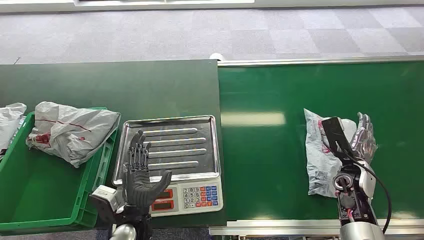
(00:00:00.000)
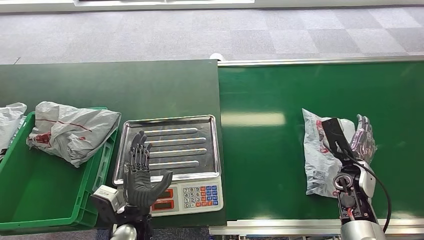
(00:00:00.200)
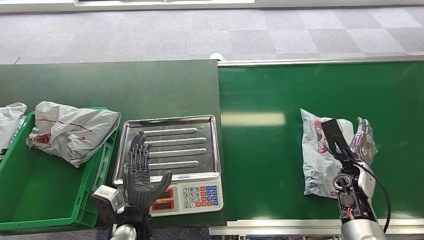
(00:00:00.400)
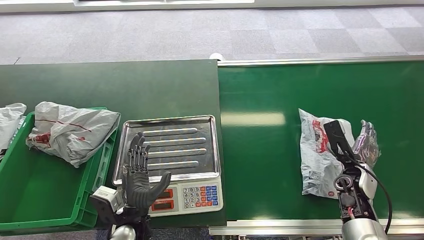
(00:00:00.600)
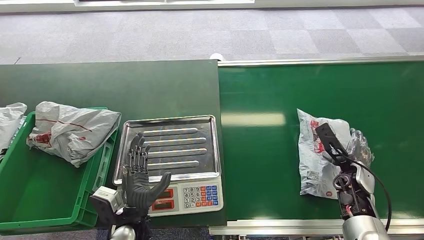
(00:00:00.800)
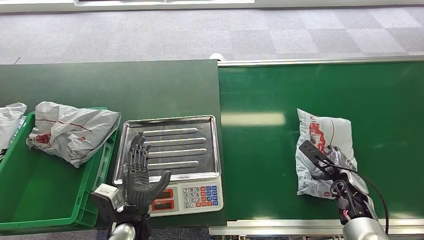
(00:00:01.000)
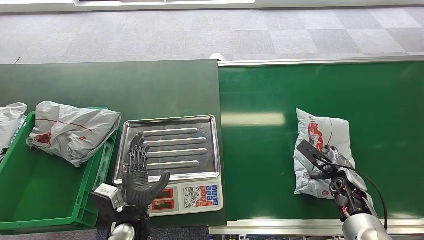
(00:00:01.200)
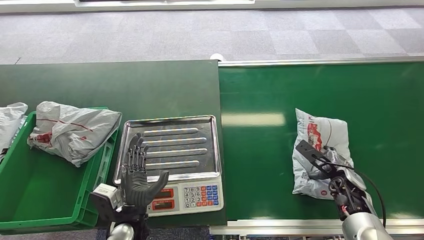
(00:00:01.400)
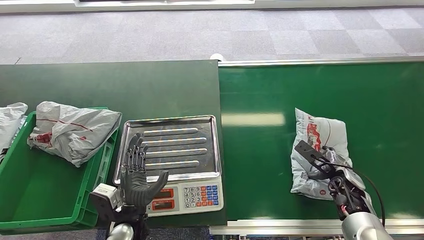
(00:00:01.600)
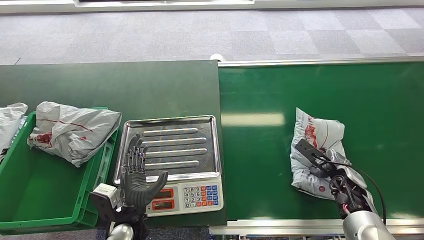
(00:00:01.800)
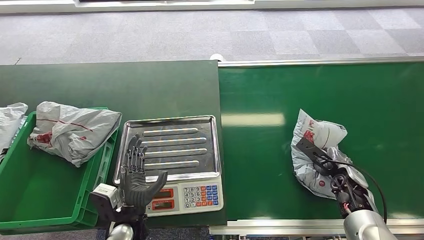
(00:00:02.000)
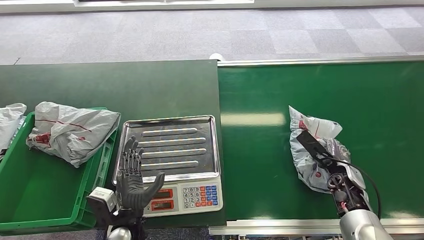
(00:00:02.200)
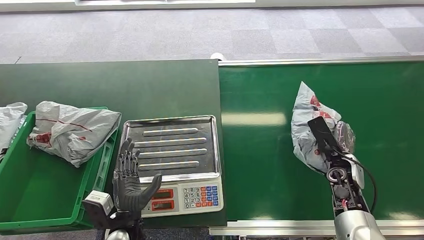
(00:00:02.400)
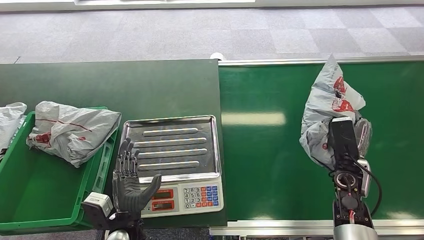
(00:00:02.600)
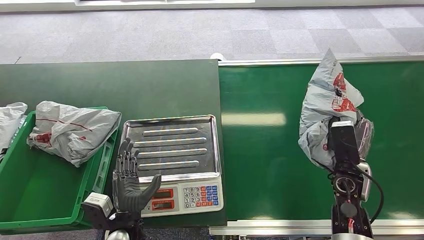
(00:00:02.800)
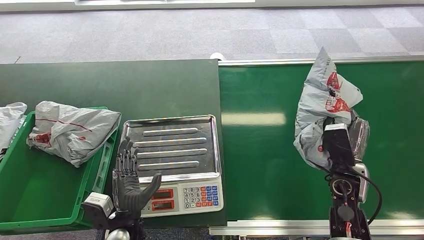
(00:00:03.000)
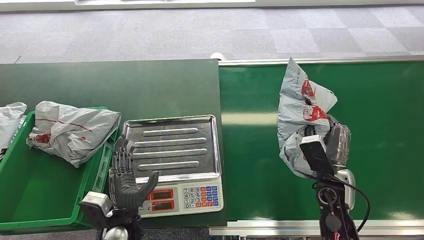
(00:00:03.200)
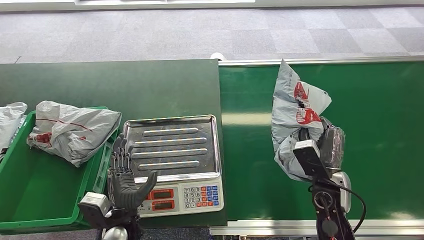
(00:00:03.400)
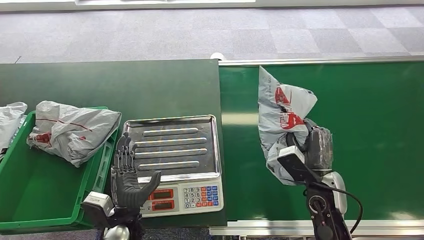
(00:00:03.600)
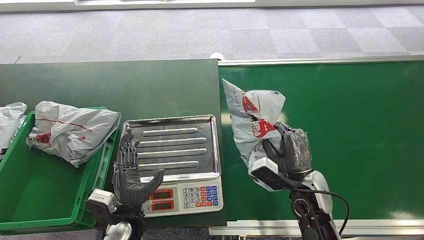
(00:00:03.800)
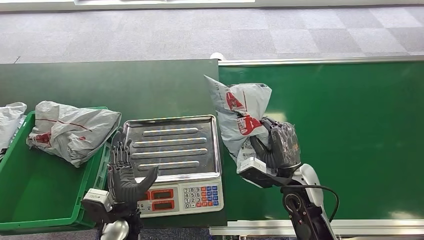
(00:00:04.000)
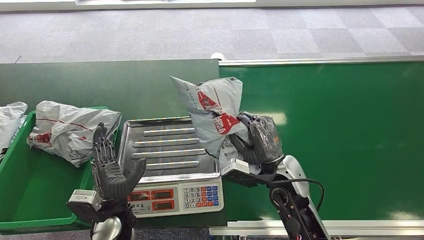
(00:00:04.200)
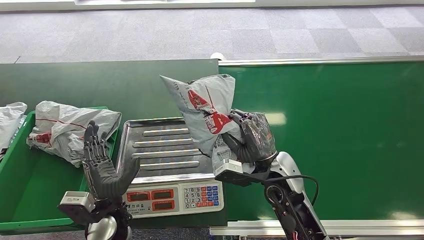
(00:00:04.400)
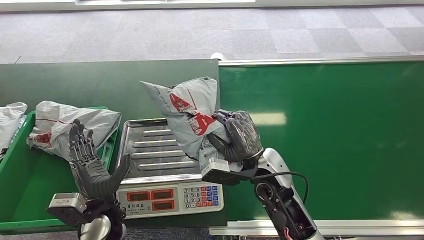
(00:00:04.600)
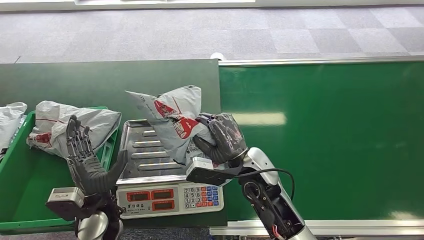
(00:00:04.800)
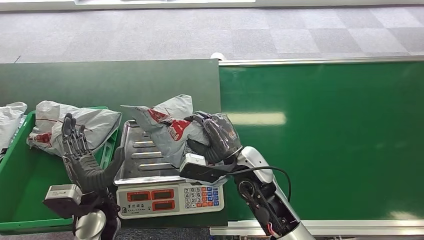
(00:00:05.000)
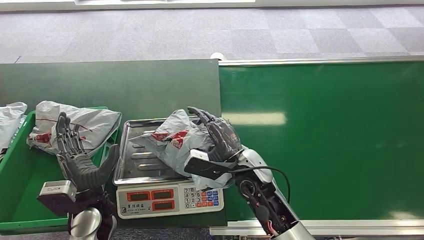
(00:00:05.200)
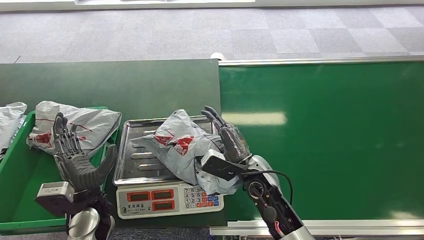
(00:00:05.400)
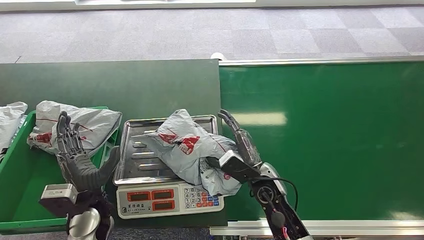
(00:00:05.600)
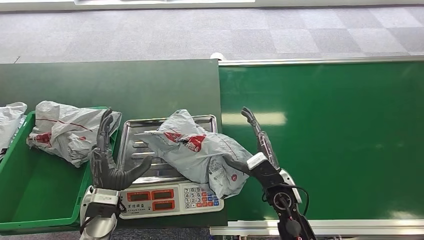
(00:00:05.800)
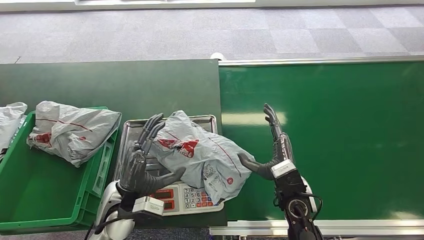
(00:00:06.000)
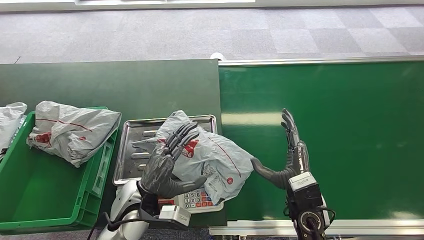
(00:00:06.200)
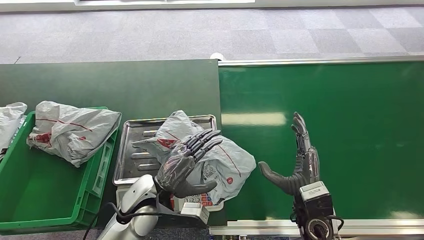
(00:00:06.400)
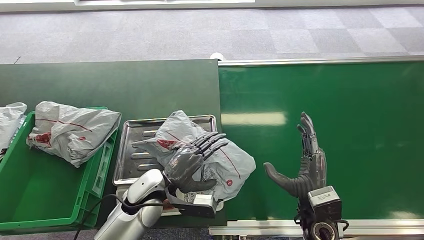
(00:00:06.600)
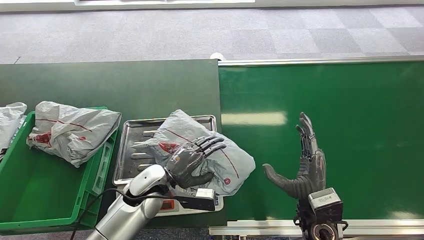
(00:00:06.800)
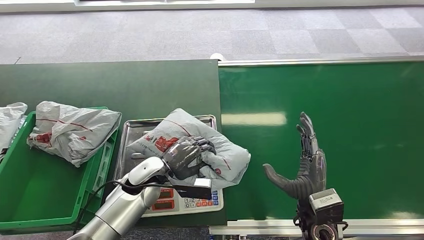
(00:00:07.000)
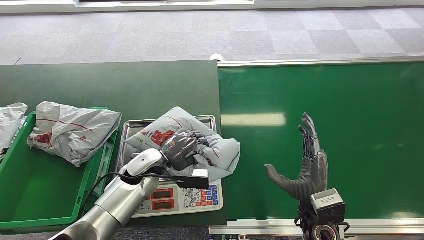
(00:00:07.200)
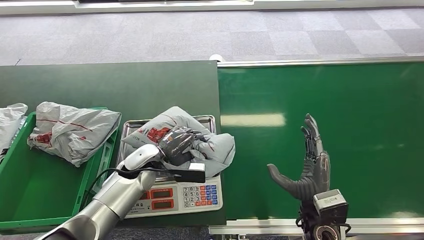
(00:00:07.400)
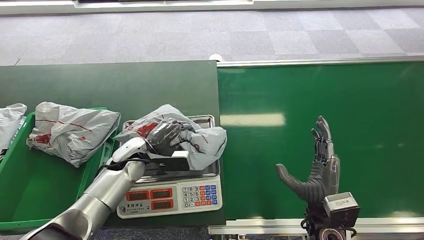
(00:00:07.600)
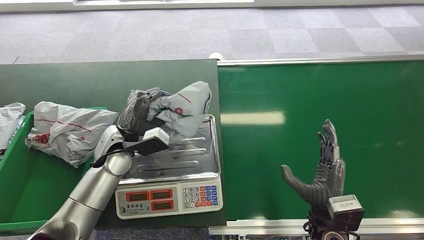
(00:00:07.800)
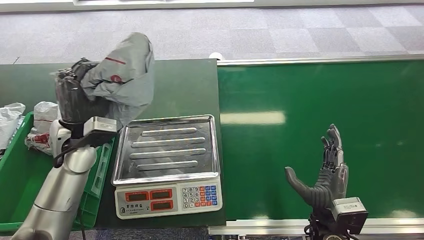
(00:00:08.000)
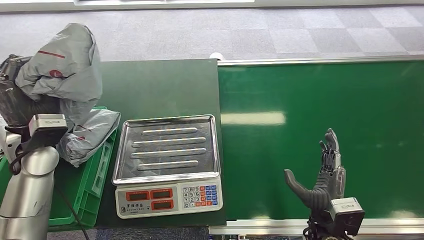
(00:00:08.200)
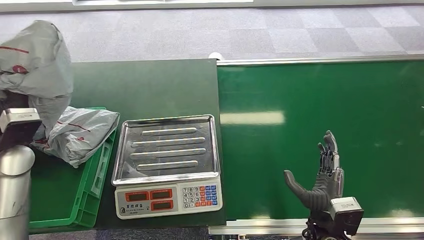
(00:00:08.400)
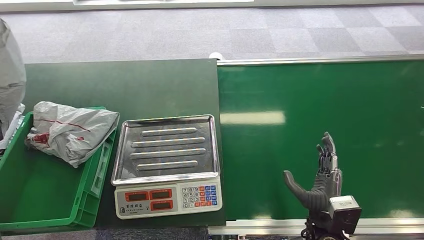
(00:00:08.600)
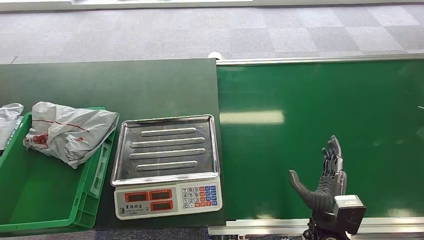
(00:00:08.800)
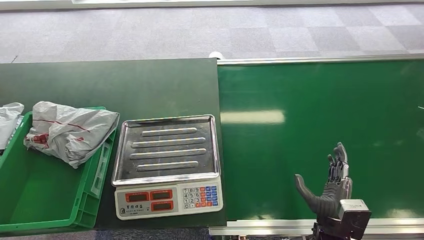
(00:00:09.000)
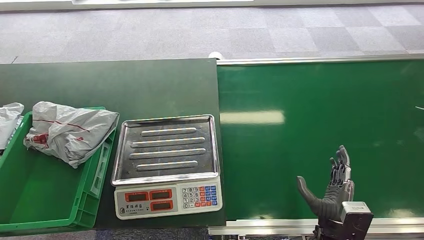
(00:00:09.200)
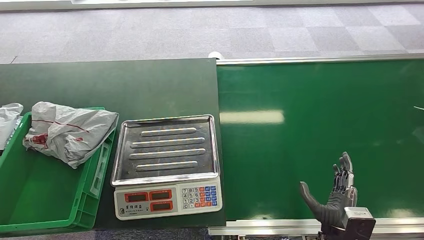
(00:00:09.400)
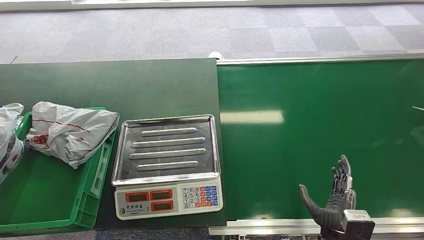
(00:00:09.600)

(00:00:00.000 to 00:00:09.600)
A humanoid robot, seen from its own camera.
Step, 00:00:00.000 - 00:00:02.600: Pick up the package from the conveyor belt.
Step, 00:00:03.600 - 00:00:05.600: Place the package onto the inbound machine.
Step, 00:00:07.400 - 00:00:08.600: Pick up the package from the inbound machine.
00:00:01.600 - 00:00:03.200: The right hand moves to the left and upward, approximately 10 cm.
00:00:04.800 - 00:00:06.400: The right hand goes some 15 cm to the right and backward. The left hand travels to the right by approximately 10 cm.
00:00:08.000 - 00:00:09.600: The right hand is displaced downward by some 5 cm. Meanwhile the left hand shifts some 35 cm to the left and backward.

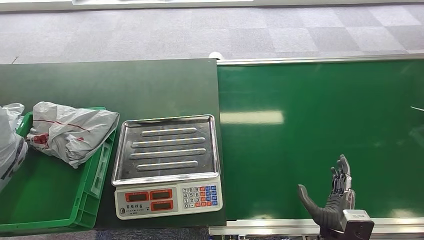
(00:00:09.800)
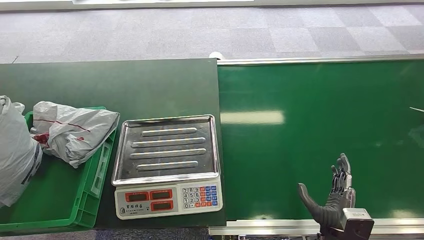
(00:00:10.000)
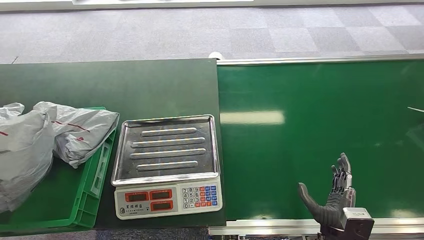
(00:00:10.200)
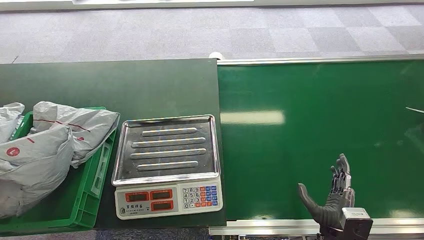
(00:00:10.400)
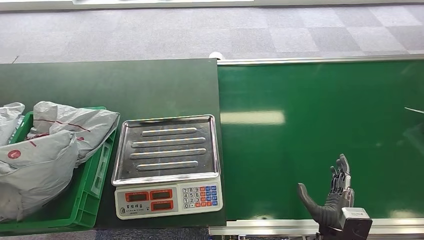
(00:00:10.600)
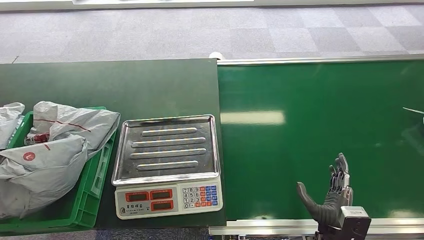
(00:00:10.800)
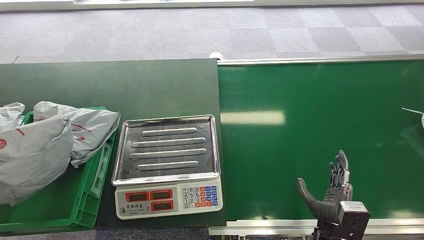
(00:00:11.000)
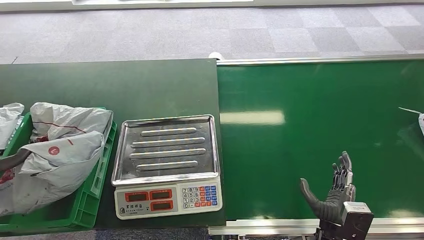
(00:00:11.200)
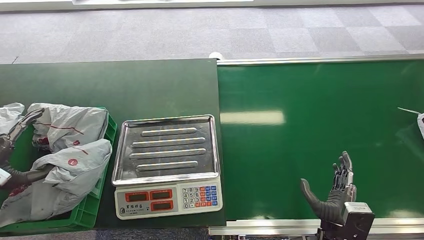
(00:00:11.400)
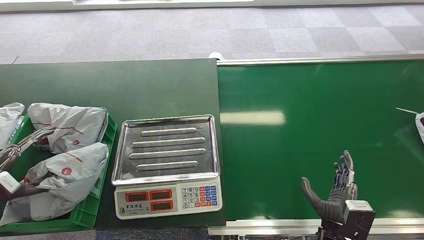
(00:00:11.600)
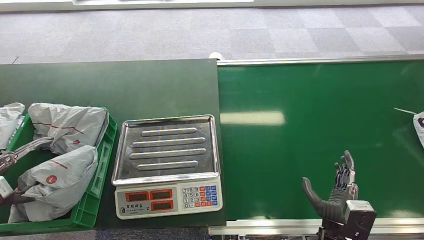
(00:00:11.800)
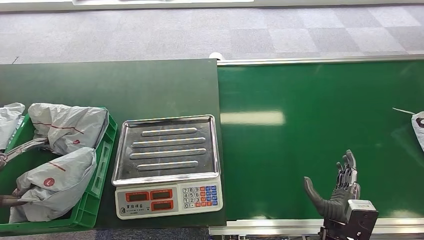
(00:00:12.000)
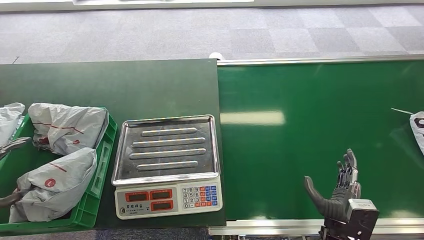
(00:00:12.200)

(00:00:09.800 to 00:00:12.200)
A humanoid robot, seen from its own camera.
Step, 00:00:09.800 - 00:00:12.200: Place the package into the parcel locker.
00:00:09.800 - 00:00:11.000: The left hand moves to the right, about 5 cm.
00:00:11.000 - 00:00:12.200: The left hand moves to the left, some 5 cm.
